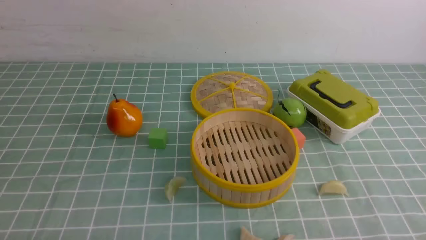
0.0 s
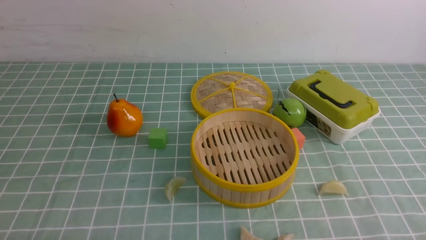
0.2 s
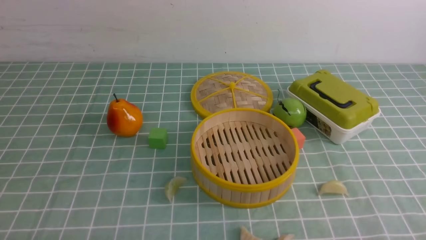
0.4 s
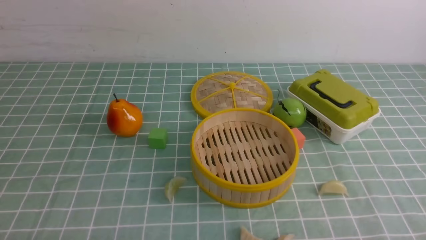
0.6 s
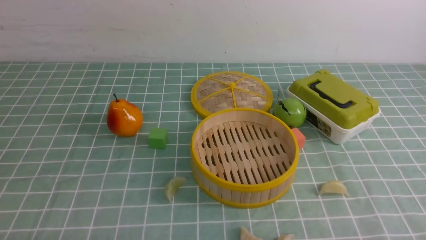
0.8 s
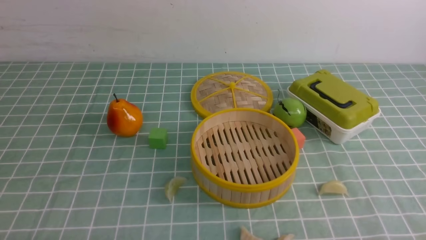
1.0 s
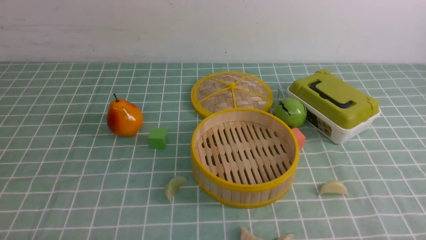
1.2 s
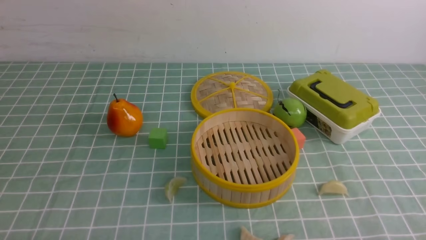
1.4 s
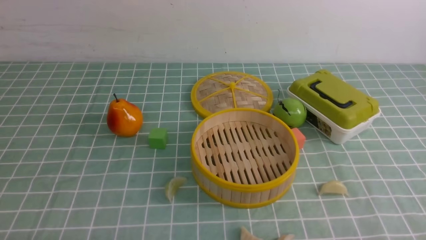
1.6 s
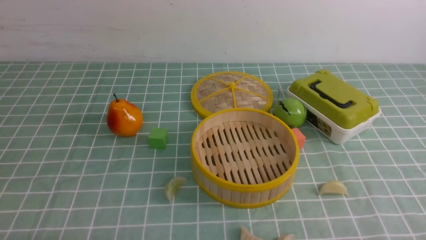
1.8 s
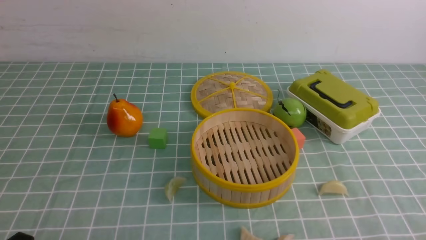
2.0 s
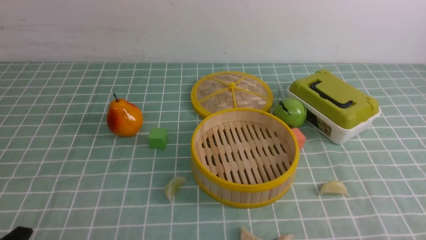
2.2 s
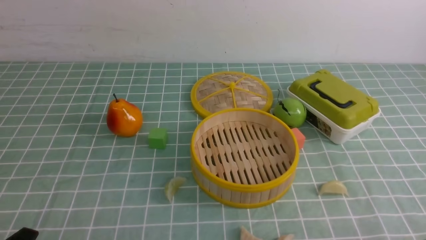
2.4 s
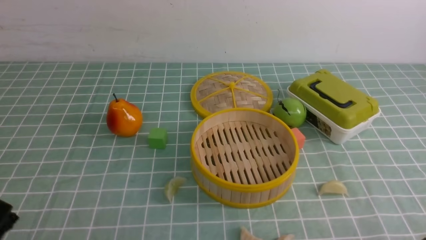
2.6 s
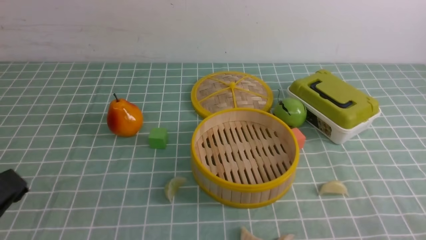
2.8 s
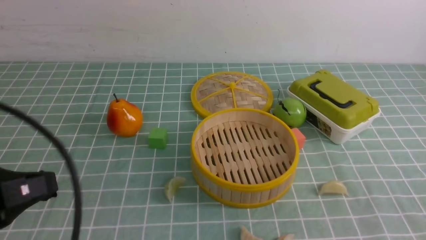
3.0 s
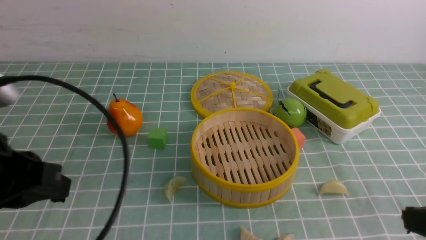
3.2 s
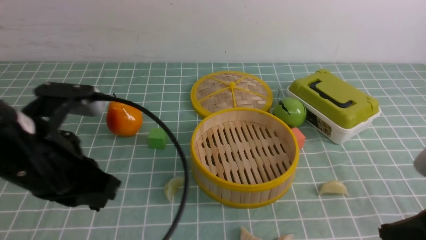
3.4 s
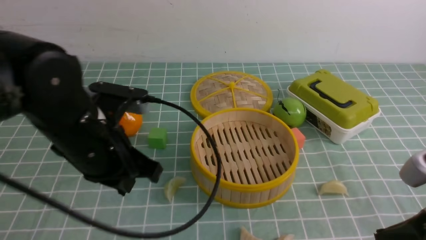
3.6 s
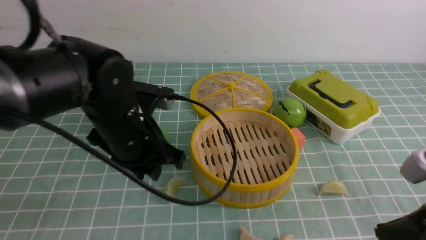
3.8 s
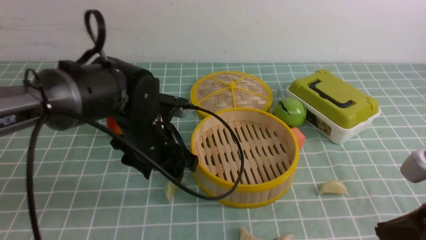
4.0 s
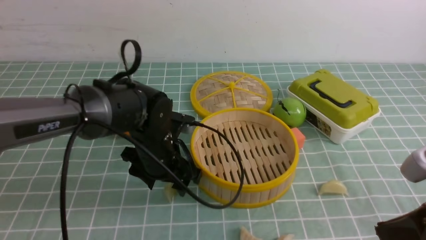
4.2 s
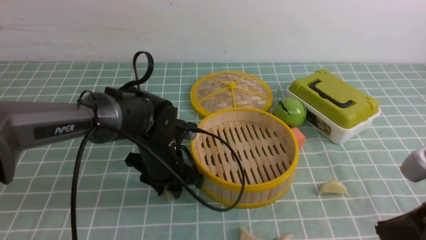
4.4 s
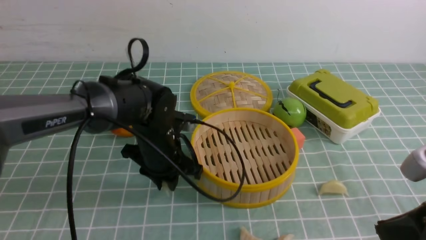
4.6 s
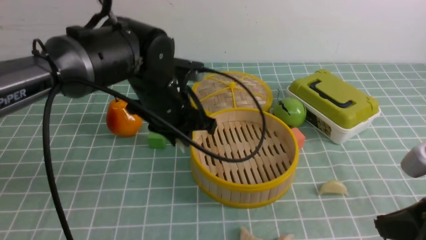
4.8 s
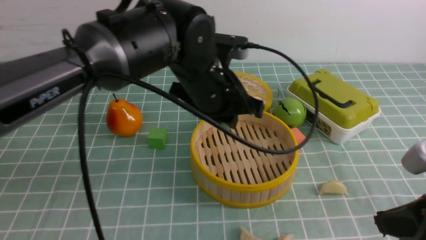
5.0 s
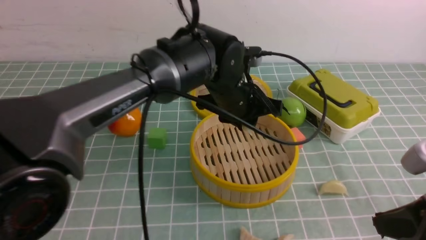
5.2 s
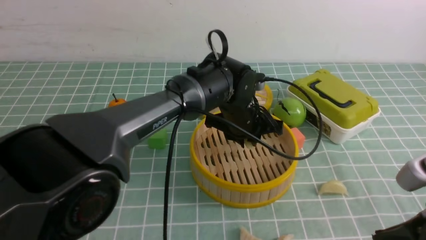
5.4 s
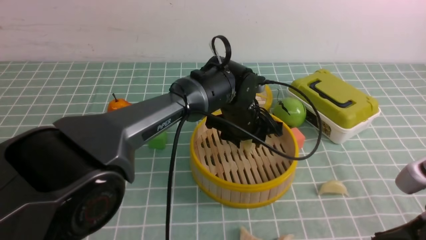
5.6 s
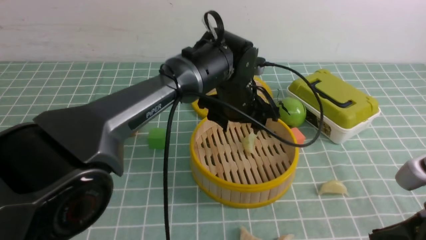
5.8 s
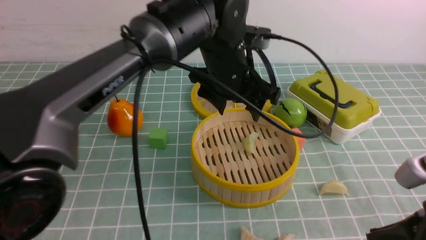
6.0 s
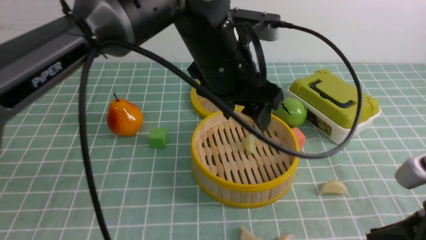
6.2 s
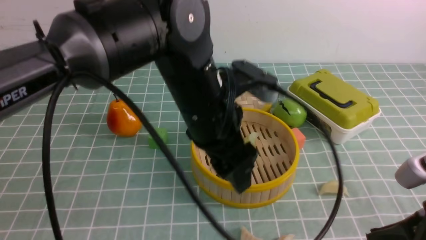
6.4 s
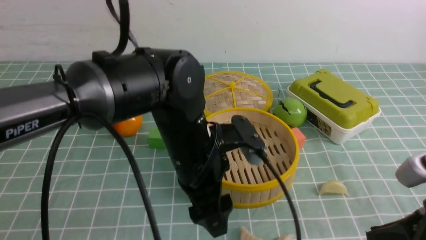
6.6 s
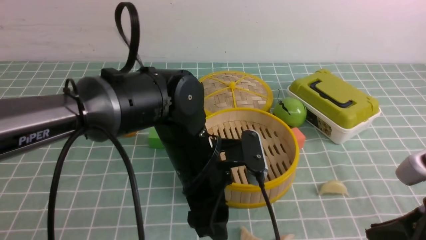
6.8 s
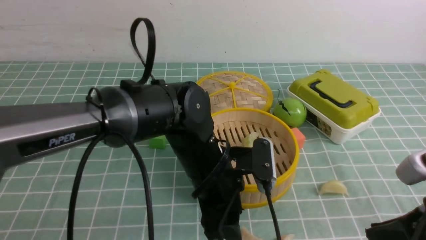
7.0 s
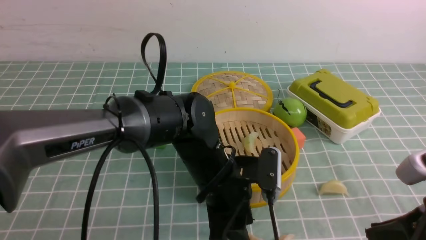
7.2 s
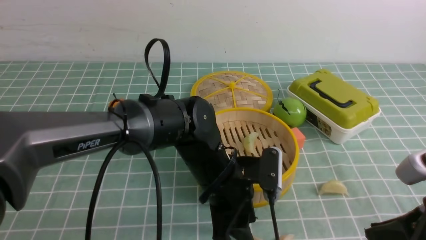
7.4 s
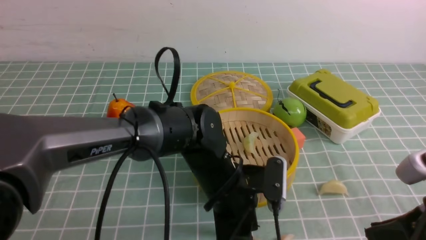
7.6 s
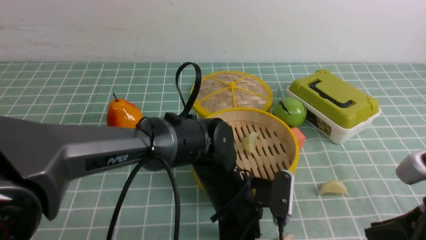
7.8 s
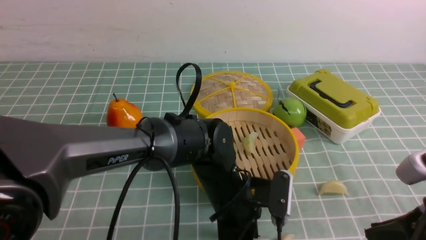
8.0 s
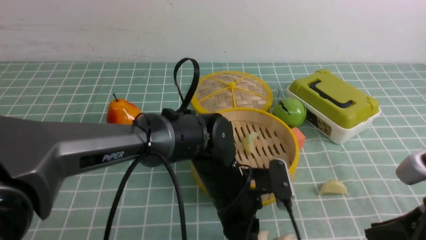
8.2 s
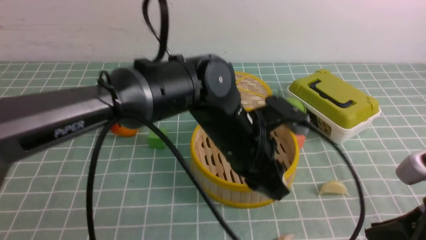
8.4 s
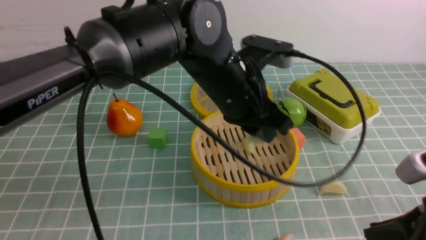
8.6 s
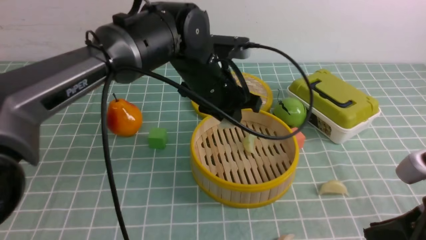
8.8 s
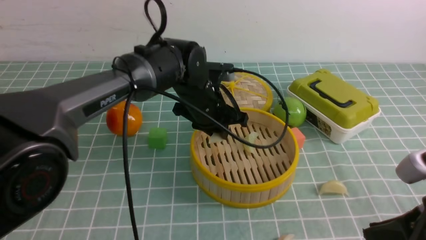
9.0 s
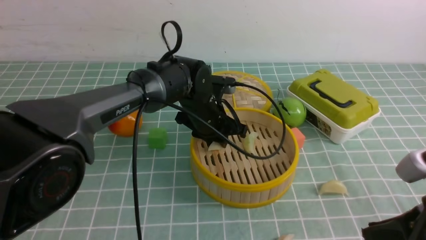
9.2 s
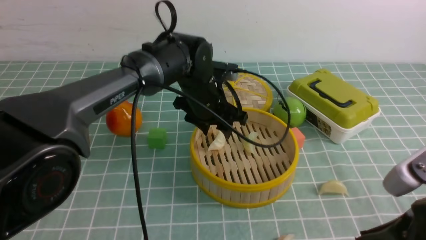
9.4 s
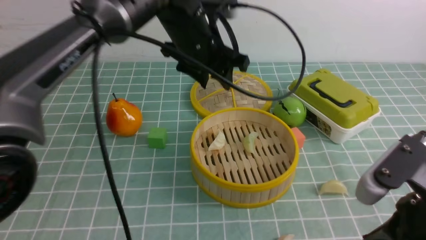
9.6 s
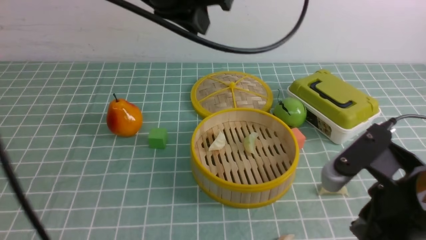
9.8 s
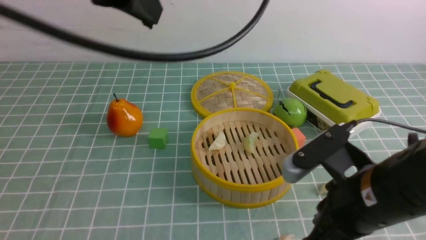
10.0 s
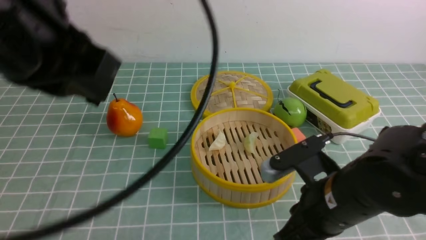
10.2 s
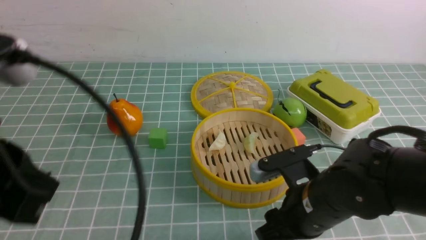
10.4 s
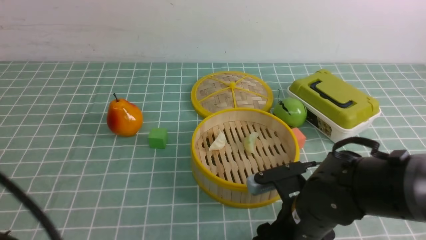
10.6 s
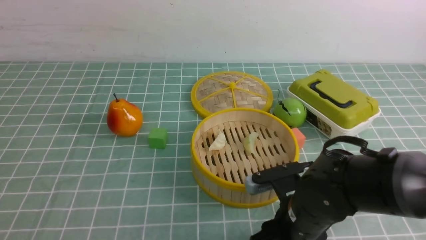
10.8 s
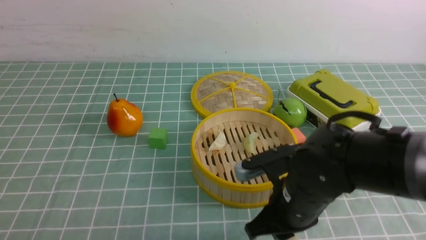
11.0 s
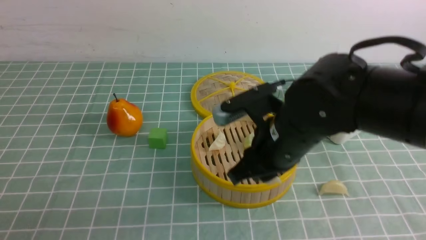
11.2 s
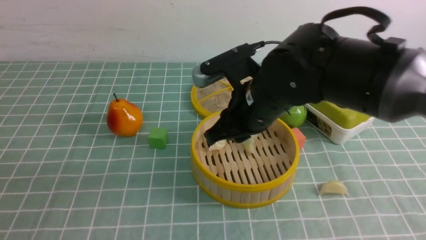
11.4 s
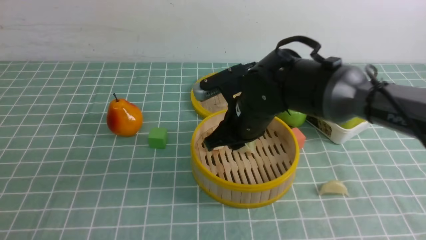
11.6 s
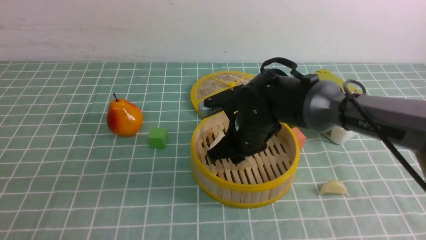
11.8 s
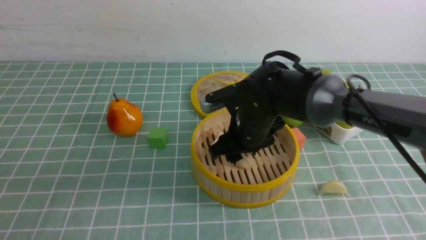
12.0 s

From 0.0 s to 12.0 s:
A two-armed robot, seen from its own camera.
Task of the whole recording: put the dumplings into the steamer on the table with the blue tablecloth.
Step, from 0.0 s to 4.4 s: use the left arm to grab a dumpling.
Step, from 4.6 s to 5.8 s: use the left arm to put the dumpling into the steamer.
Step, from 6.0 s to 8.0 s: use the left arm to grab a dumpling.
Step, from 8.2 s to 9.4 s: use the left arm to put the dumpling into the steamer.
Step, from 9.6 s to 10.6 s: use the right arm to grab a dumpling.
Step, from 11.0 s to 11.8 s: use the right arm to put the dumpling into the steamer.
From 1.6 s to 3.0 s: The left gripper heads upward, covering some 15 cm.
From 3.0 s to 4.4 s: The left gripper moves forward, to the right and downward, some 35 cm, and opens up, while the right gripper heads forward, covering about 10 cm.
From 4.4 s to 6.0 s: The left gripper heads to the right and upward, covering some 15 cm, and closes and opens again.
From 6.0 s to 7.6 s: The left gripper shifts about 15 cm downward and backward.
From 7.6 s to 9.0 s: The left gripper travels forward and upward by roughly 15 cm.
From 9.0 s to 10.4 s: The left gripper heads backward, upward and to the left, covering about 35 cm, while the right gripper travels to the left, forward and downward by some 15 cm.
From 10.4 s to 12.0 s: The left gripper goes roughly 15 cm backward, downward and to the left. The right gripper goes some 15 cm forward and to the left.

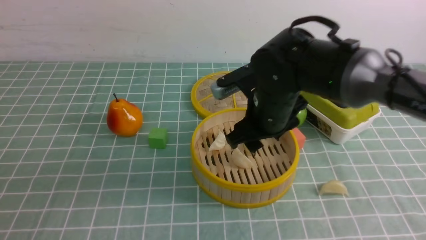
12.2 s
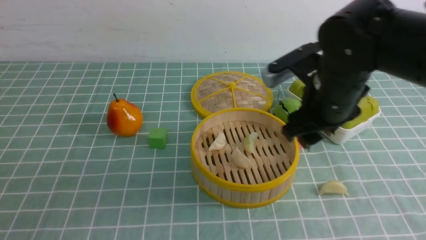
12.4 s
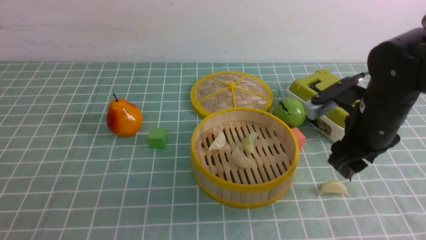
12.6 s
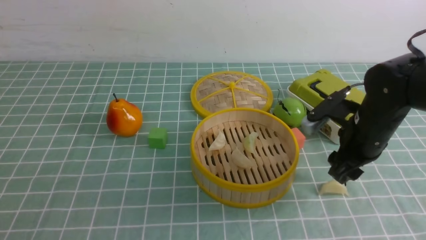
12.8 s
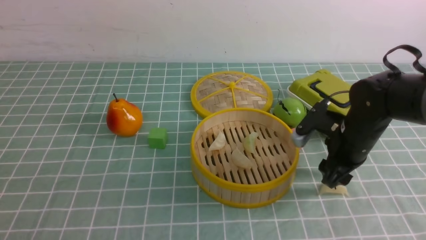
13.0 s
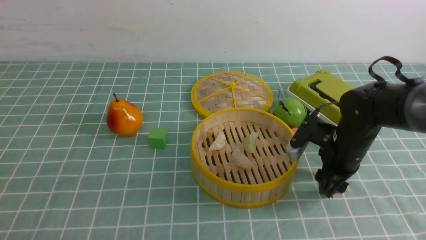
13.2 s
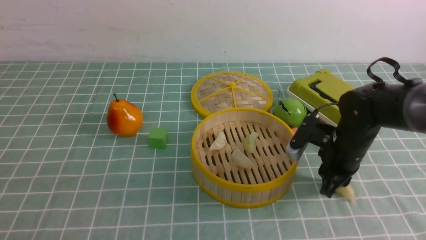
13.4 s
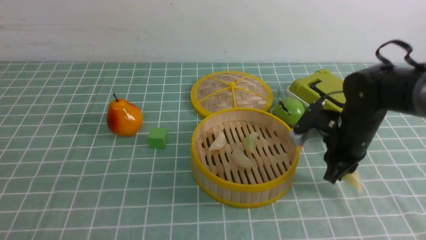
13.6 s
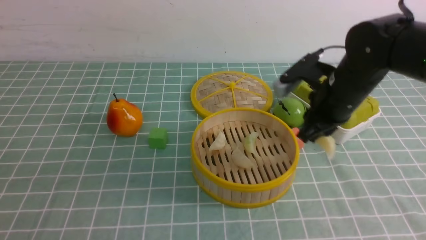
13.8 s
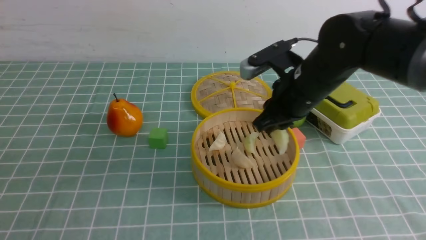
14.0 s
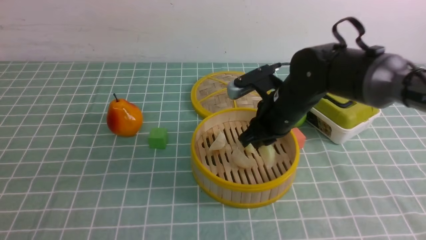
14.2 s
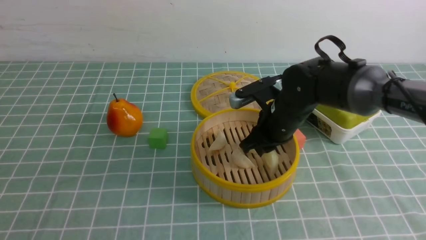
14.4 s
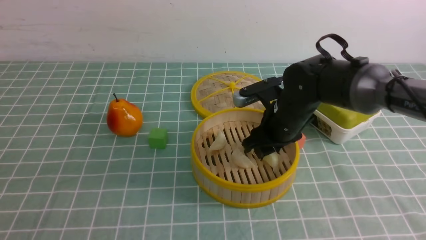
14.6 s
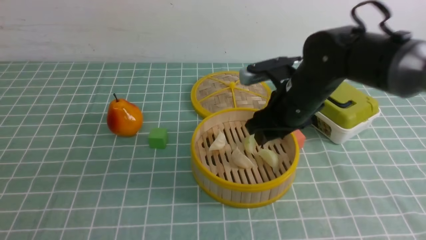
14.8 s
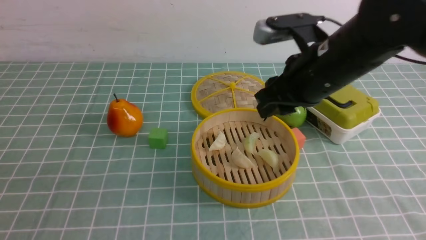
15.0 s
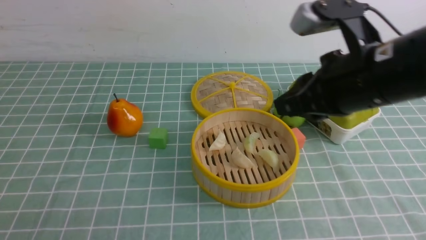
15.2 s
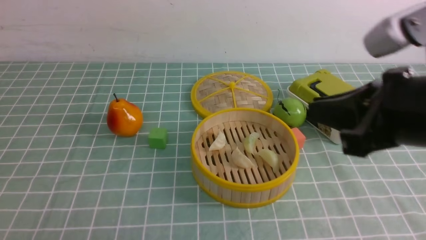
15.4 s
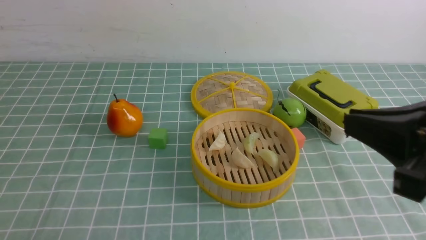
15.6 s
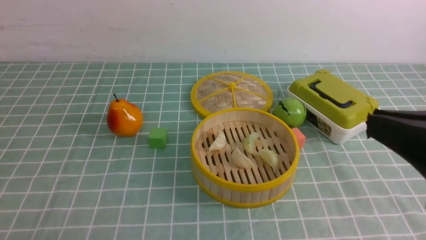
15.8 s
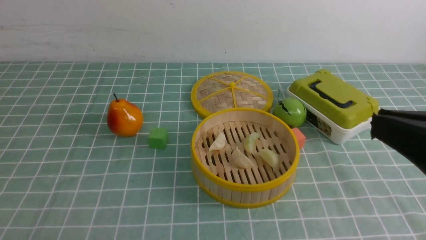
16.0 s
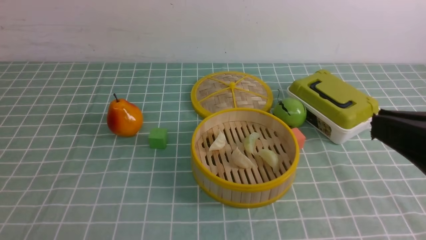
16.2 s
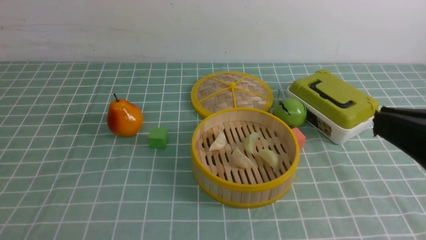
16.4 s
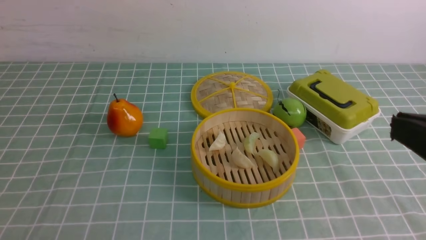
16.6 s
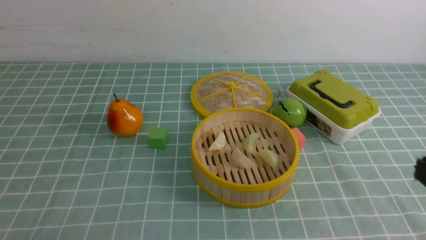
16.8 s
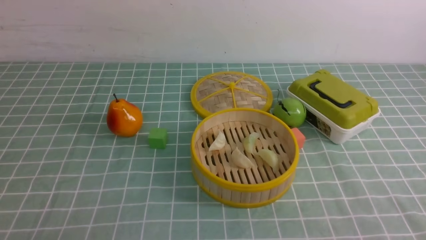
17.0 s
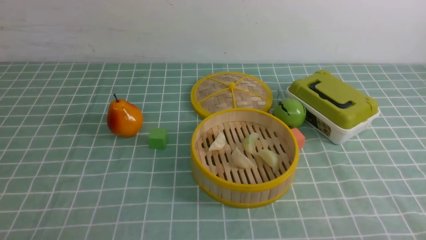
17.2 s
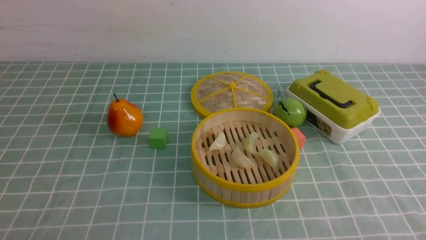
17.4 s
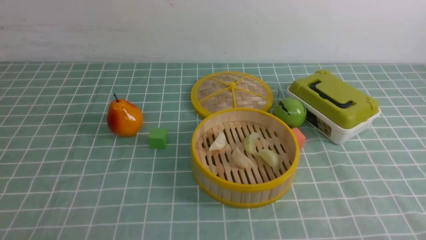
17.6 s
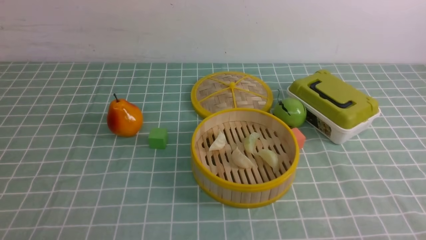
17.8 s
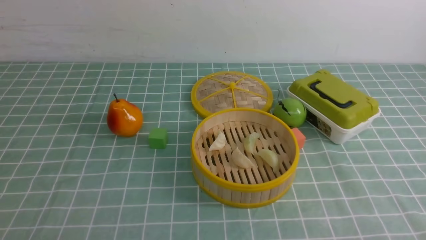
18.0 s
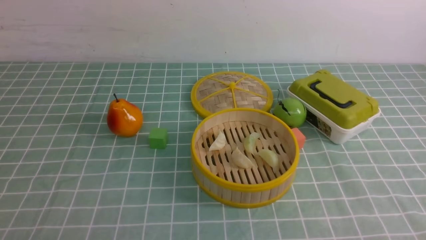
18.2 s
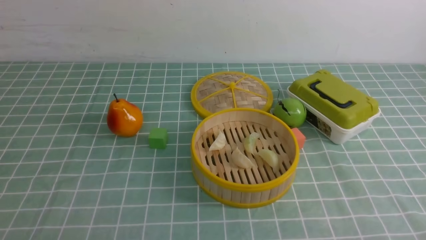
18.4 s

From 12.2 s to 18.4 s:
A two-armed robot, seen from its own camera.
Task of the whole recording: put the dumplings into the steamer on the table with the blue tablecloth.
Step, from 12.2 s to 13.2 s: use the right arm to grab a dumpling.
Step, from 13.4 s to 14.6 s: use the right arm to put the dumpling into the steamer.
From 12.2 s to 13.8 s: The right gripper is displaced to the right by about 10 cm, and closes.
From 13.8 s to 15.4 s: The right gripper is displaced backward and upward by about 20 cm, and opens, then closes once more.
From 15.4 s to 16.8 s: The right gripper is displaced backward and to the right by roughly 15 cm.
